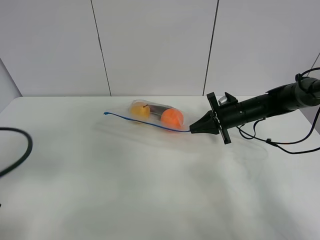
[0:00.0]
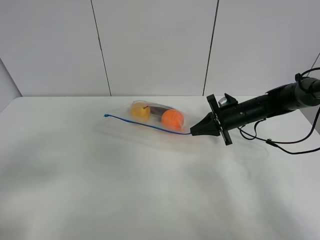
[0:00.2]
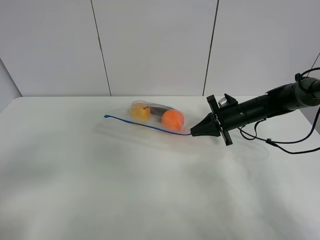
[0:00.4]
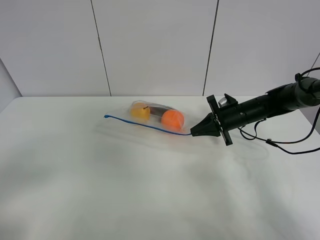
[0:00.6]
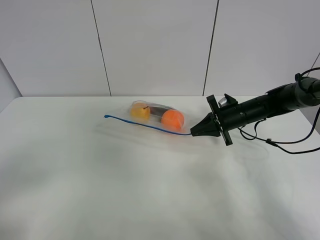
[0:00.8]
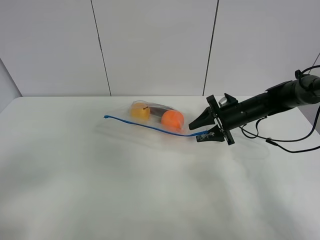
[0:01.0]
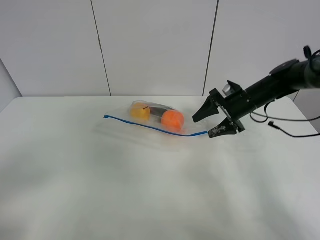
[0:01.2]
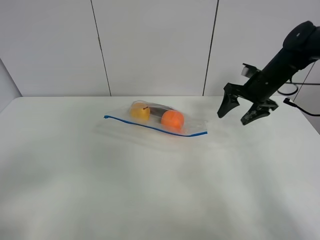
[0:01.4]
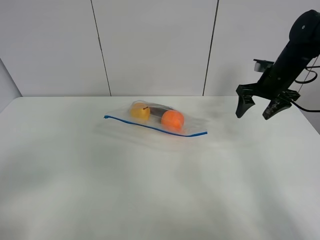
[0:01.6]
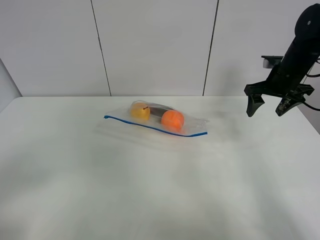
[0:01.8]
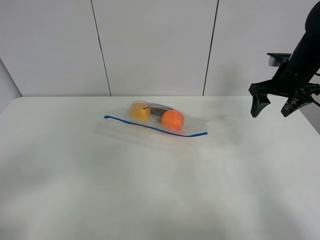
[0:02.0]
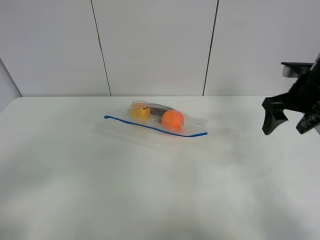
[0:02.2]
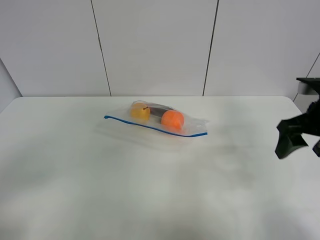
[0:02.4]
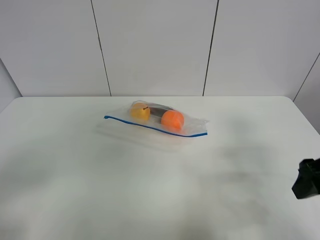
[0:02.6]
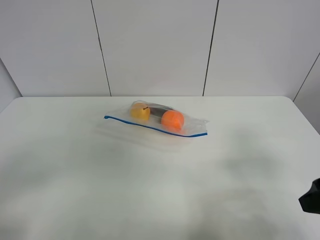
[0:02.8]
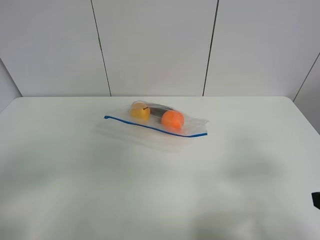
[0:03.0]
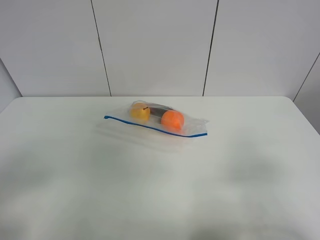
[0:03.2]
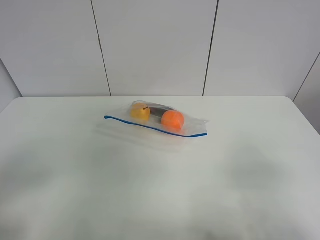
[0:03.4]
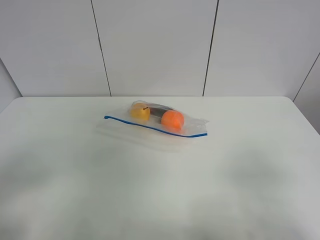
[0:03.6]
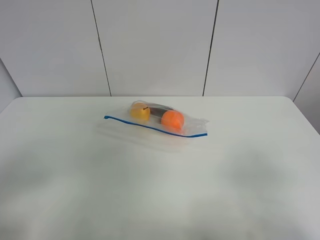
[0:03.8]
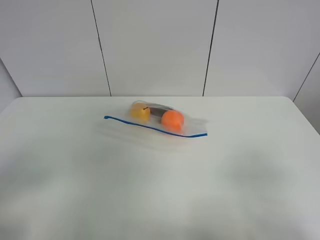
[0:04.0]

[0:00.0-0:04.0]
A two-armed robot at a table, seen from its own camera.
0:00.0 to 0:01.4: The right gripper heads upward, covering roughly 10 cm, and opens. The left gripper is displaced backward by roughly 10 cm.
0:01.4 to 0:02.6: The right gripper heads backward, covering some 25 cm.
0:02.6 to 0:04.0: The right gripper travels backward by about 15 cm.

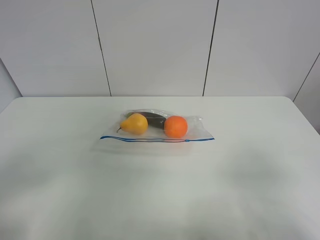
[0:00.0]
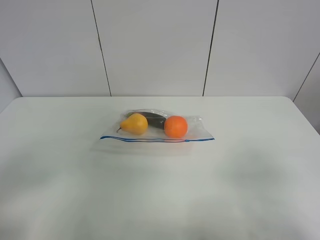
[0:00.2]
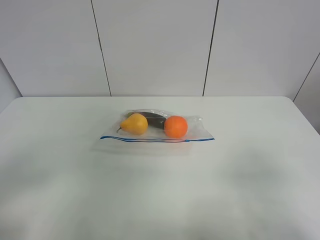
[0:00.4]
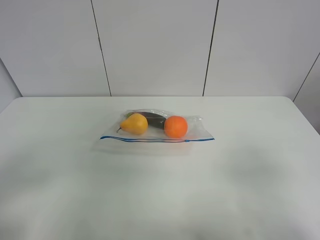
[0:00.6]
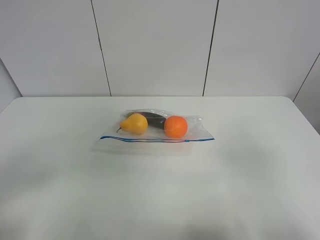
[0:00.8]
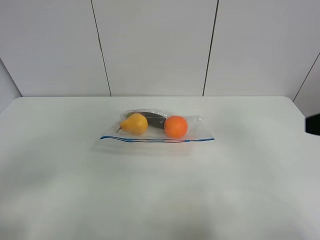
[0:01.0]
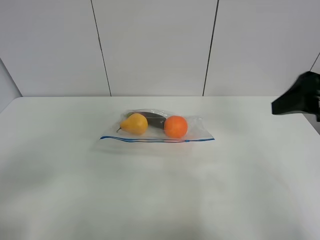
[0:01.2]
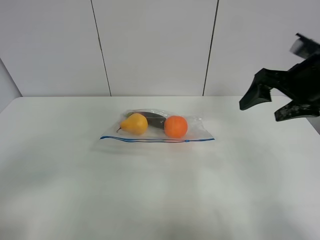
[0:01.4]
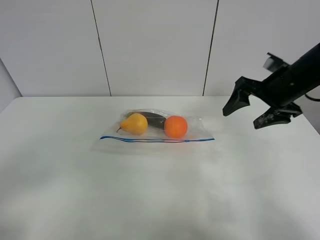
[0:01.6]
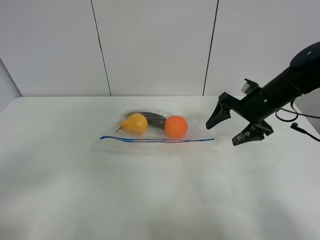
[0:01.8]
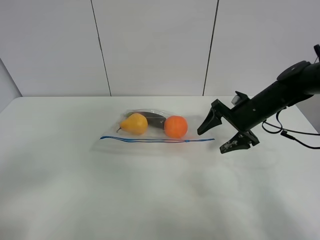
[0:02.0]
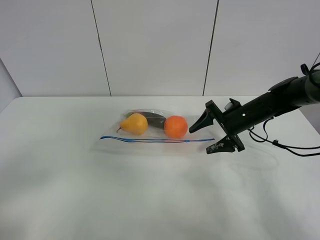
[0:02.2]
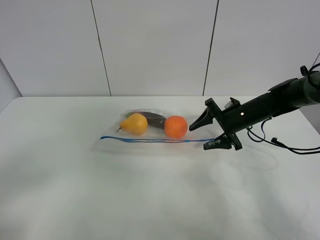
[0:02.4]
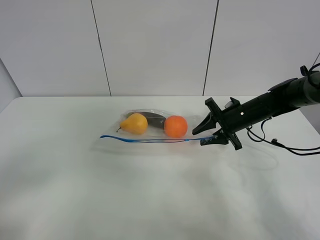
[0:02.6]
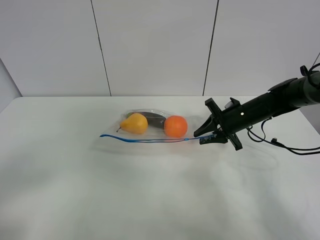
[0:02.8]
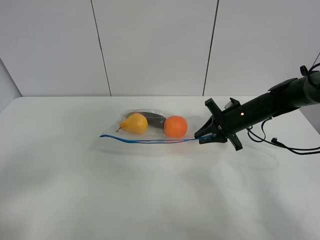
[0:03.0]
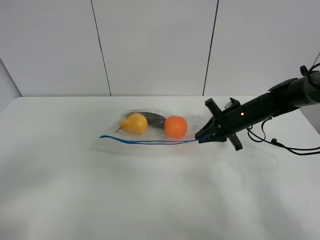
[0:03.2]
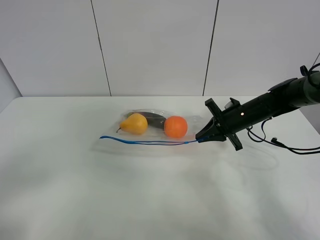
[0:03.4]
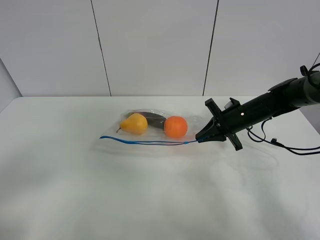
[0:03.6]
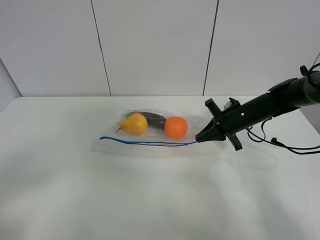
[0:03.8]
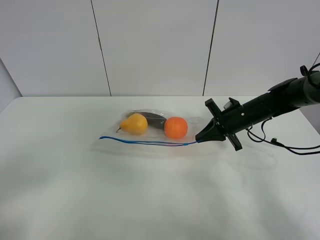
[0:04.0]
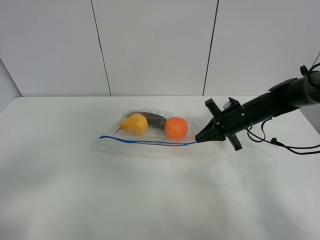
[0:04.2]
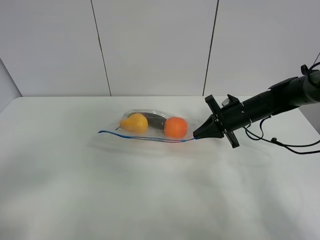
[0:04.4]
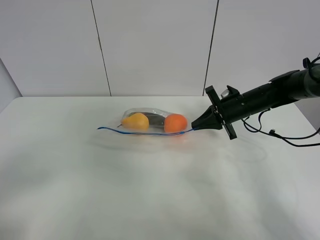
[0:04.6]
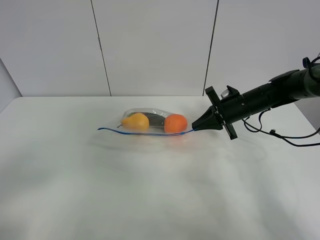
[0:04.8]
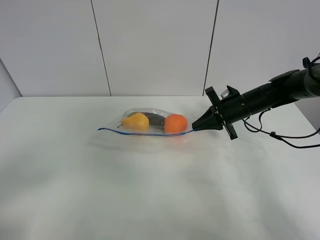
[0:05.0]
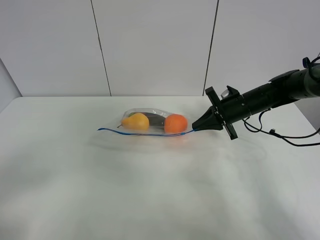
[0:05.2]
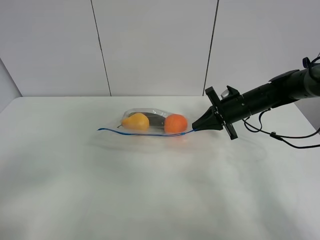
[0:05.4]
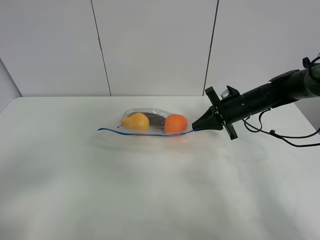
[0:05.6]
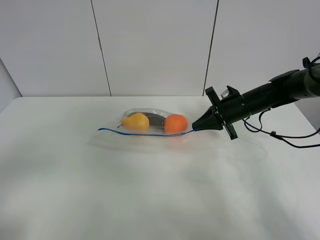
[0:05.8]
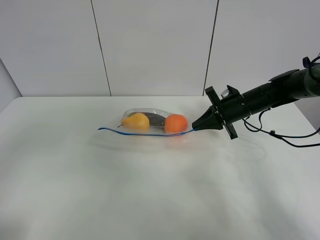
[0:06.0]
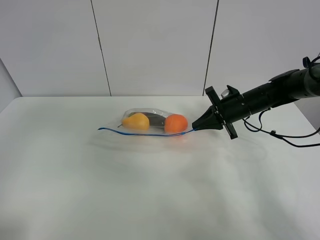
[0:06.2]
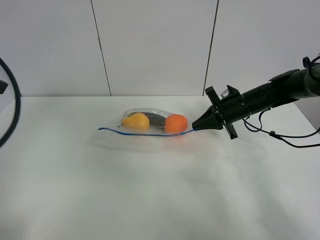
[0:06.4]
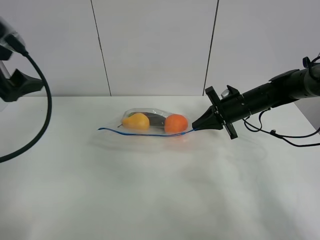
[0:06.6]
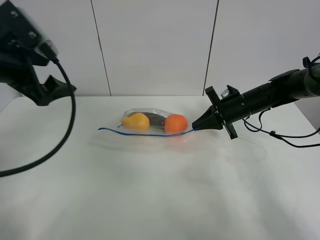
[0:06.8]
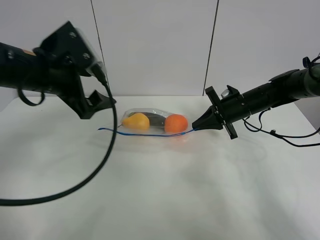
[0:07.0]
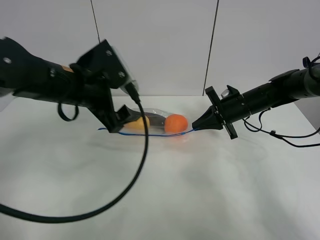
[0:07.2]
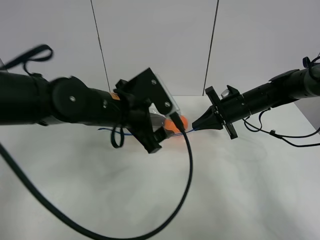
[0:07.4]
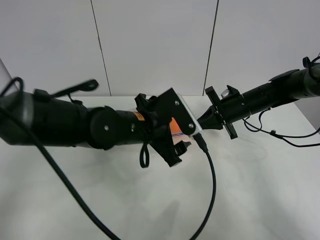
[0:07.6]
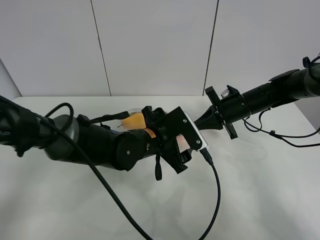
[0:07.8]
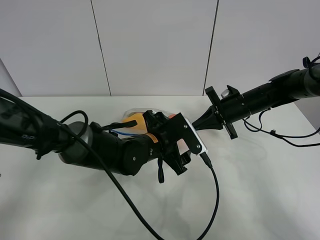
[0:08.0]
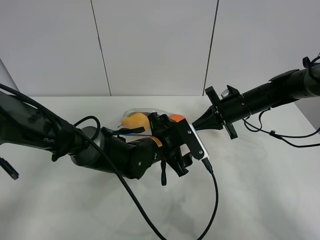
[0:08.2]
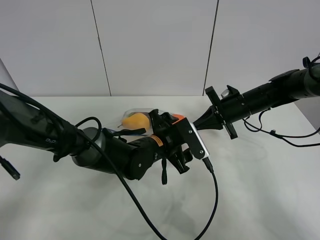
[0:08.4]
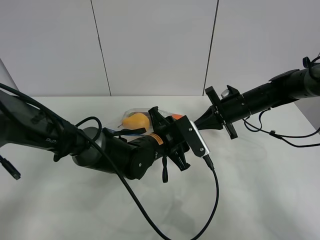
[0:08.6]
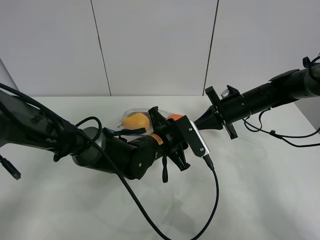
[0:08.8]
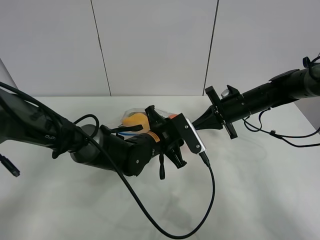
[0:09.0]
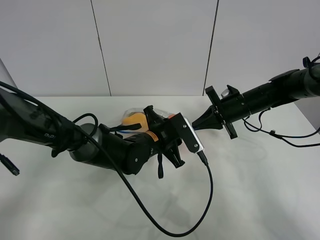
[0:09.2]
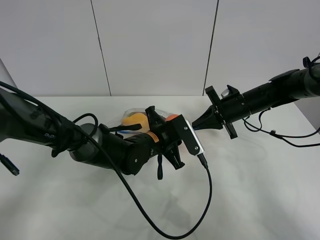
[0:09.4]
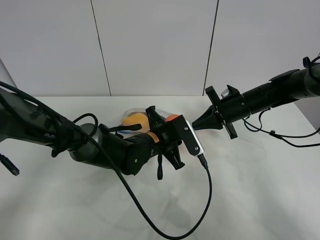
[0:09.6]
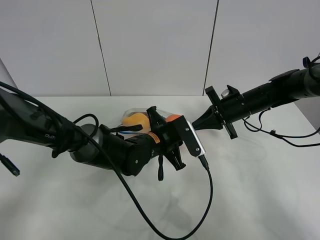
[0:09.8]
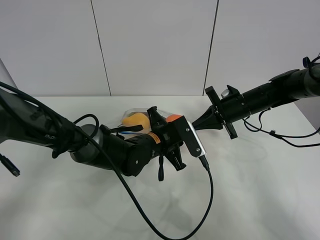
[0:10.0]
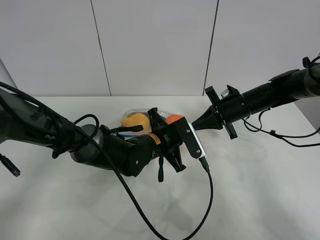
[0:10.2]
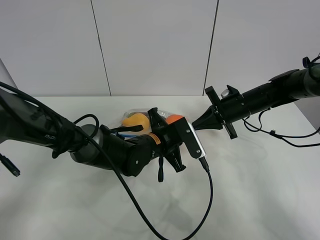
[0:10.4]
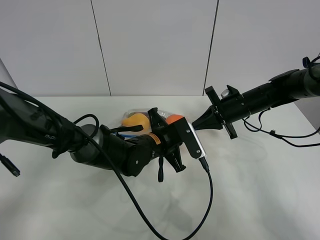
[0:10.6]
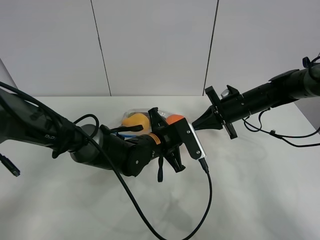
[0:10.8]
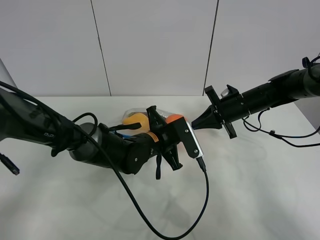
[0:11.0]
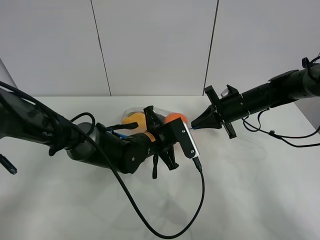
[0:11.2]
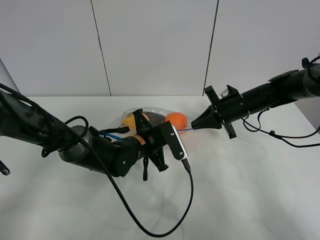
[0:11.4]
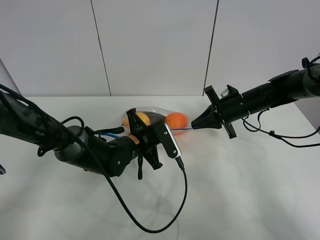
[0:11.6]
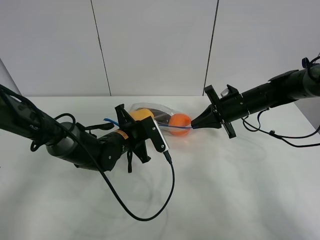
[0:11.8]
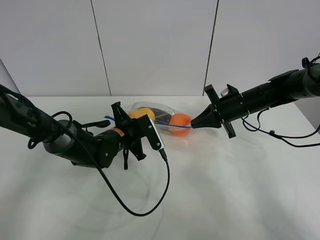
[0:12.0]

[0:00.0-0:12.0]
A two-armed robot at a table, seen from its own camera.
Step, 0:00.0 to 0:03.6: Grasp the fruit bag with right gripper.
Step, 0:03.8 to 0:04.8: Lift the fruit bag with your right gripper.
0:00.0 to 0:01.6: The right gripper moves forward, about 30 cm.
0:01.6 to 0:03.0: The right gripper shifts about 15 cm downward and forward, and closes.
0:03.0 to 0:04.4: The grippers stay close to where they were, moving slightly.
0:04.4 to 0:06.0: The left gripper is displaced upward and forward by some 10 cm.
0:06.0 to 0:07.6: The left gripper goes approximately 35 cm to the right, forward and downward.
0:07.6 to 0:09.0: The left gripper goes about 5 cm downward, and closes.
0:09.0 to 0:10.4: The left gripper closes up.
0:10.4 to 0:12.0: The left gripper moves to the left, about 10 cm.

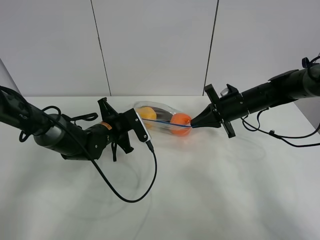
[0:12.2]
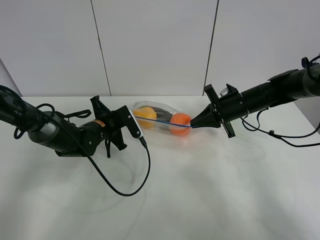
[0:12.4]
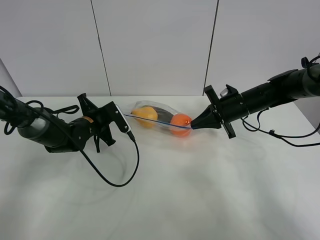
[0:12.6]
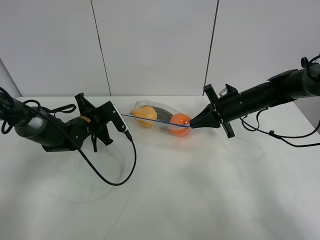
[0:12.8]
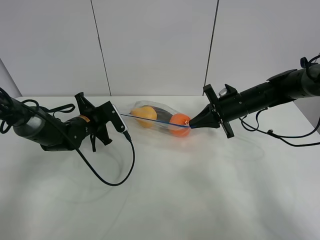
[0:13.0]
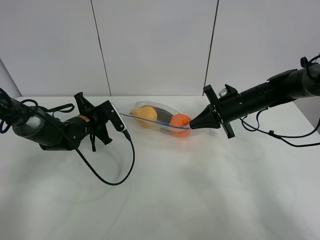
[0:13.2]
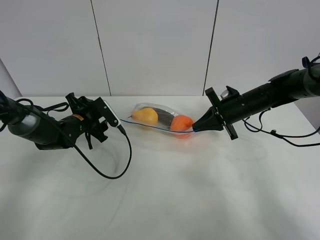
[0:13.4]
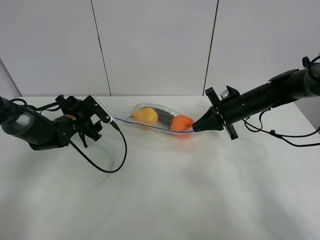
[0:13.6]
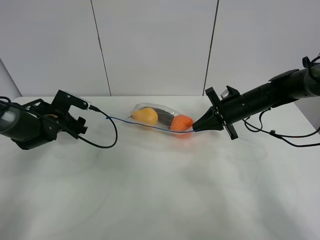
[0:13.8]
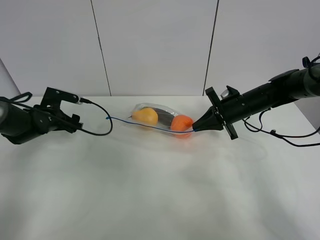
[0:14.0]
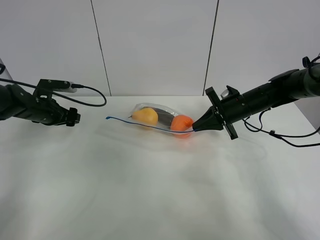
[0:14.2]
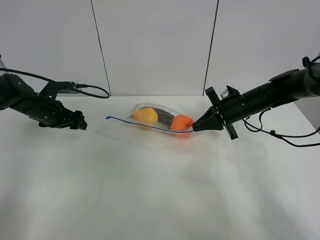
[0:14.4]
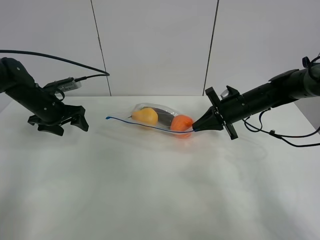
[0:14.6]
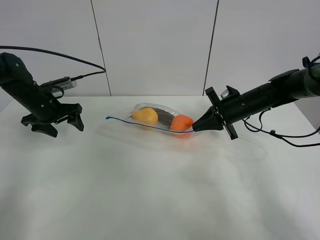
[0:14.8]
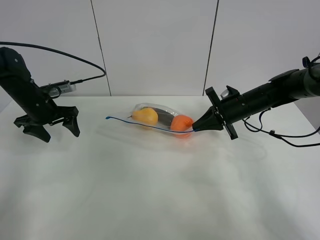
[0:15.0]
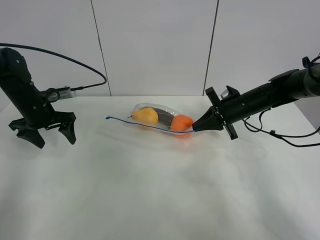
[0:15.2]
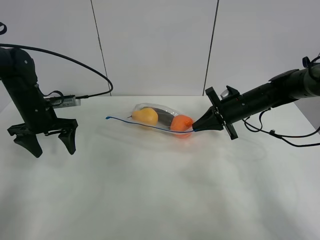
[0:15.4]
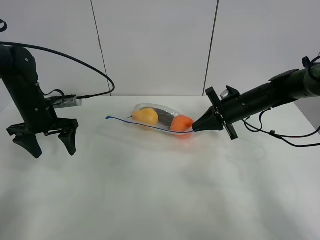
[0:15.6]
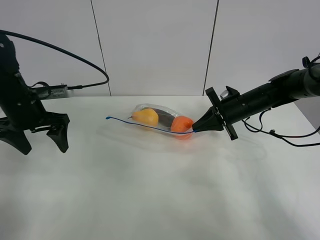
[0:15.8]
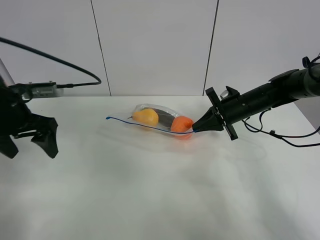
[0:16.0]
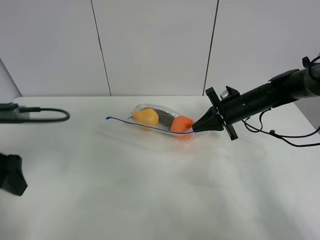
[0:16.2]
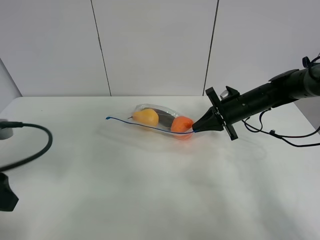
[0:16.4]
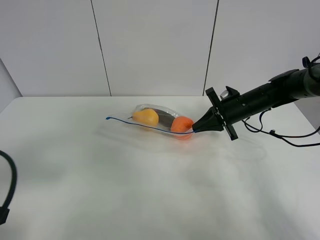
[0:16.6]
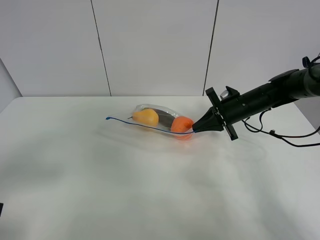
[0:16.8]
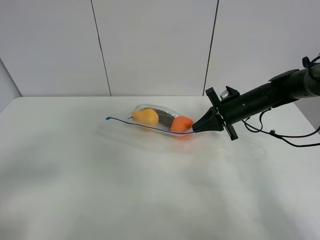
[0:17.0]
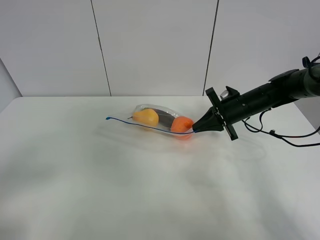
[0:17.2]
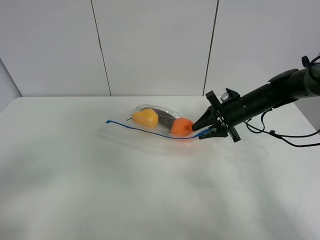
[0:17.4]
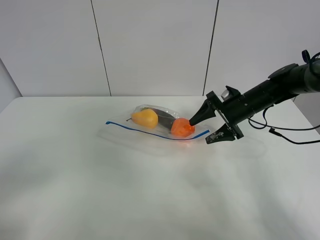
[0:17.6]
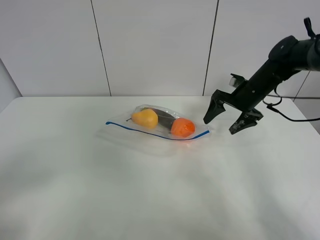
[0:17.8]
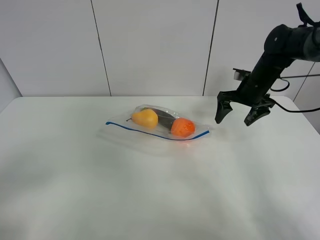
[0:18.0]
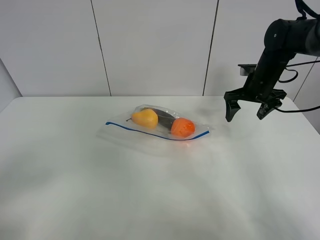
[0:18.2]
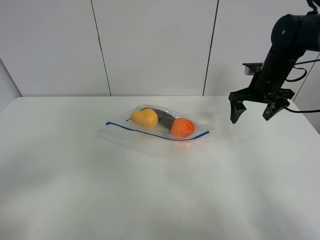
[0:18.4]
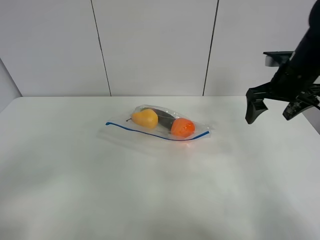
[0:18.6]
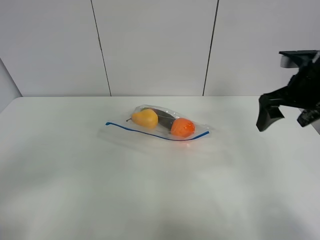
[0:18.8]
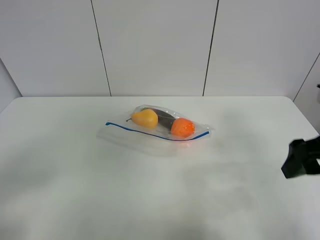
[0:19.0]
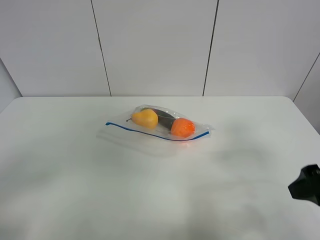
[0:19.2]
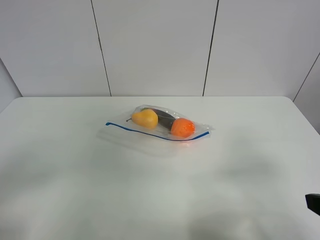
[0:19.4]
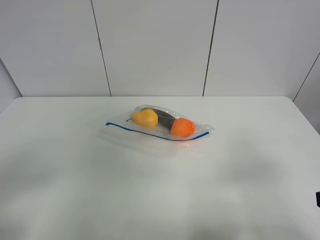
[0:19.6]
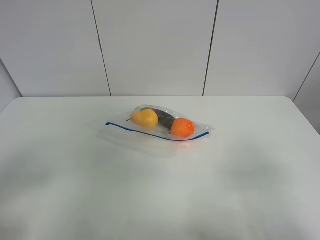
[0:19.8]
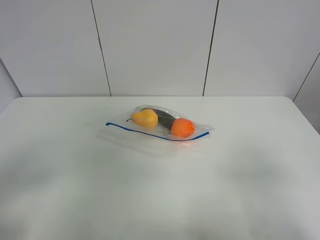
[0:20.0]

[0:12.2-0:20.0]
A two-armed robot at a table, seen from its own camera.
0:12.2 to 0:13.8: The left gripper goes roughly 15 cm to the left, and opens.
0:13.8 to 0:15.4: The left gripper heads upward, covering roughly 10 cm.
0:15.4 to 0:16.8: The left gripper heads backward, covering about 30 cm.
0:16.8 to 0:18.4: The right gripper travels upward by approximately 10 cm, and opens its fingers. The left gripper is displaced backward by some 5 cm.
0:18.4 to 0:20.0: The right gripper shifts roughly 40 cm backward.
